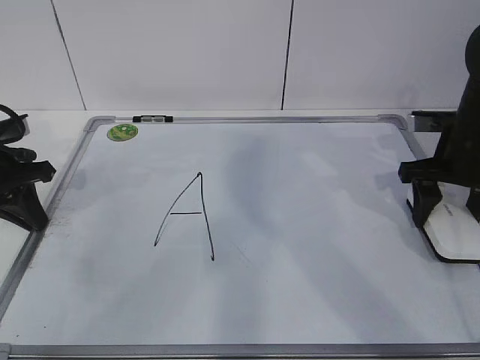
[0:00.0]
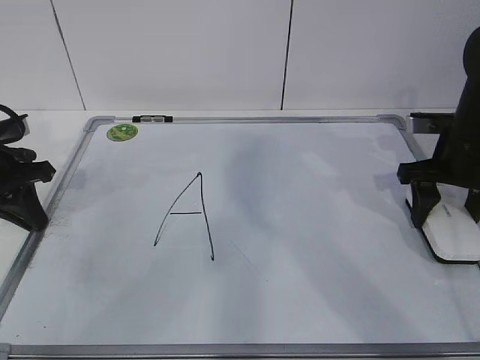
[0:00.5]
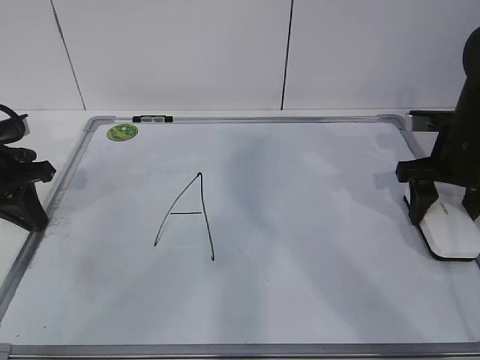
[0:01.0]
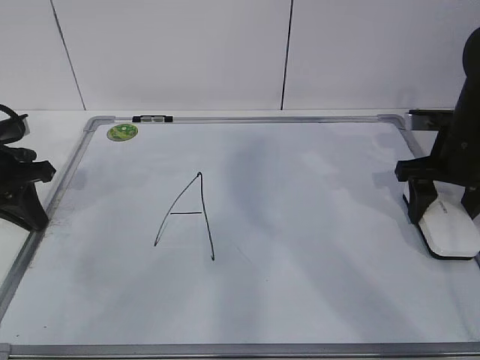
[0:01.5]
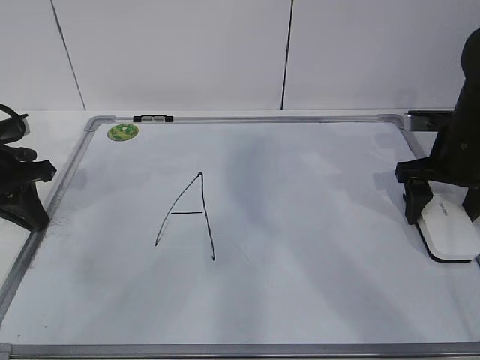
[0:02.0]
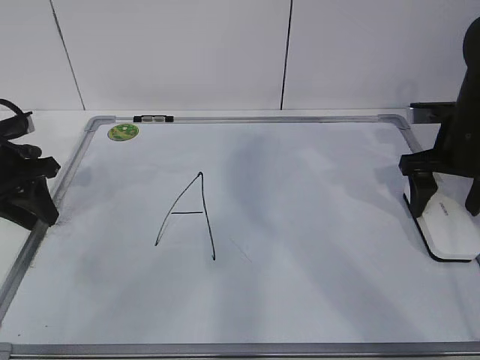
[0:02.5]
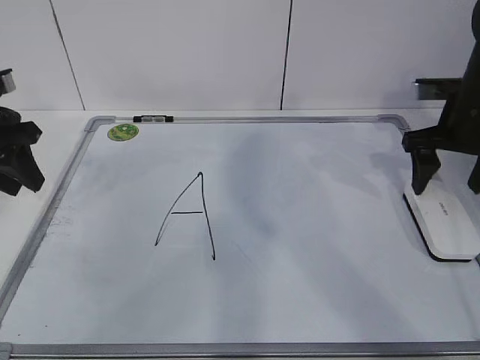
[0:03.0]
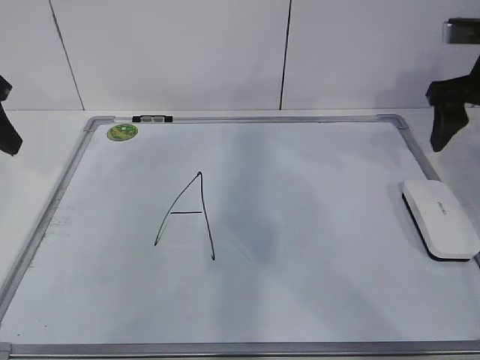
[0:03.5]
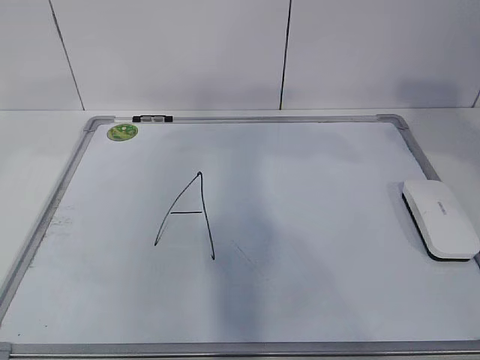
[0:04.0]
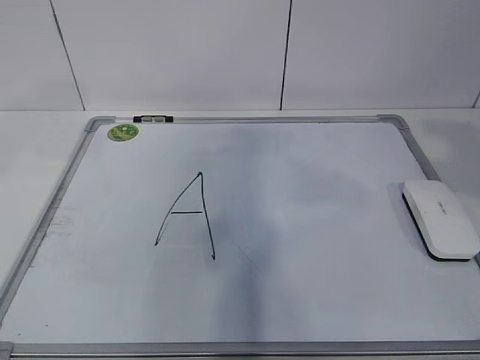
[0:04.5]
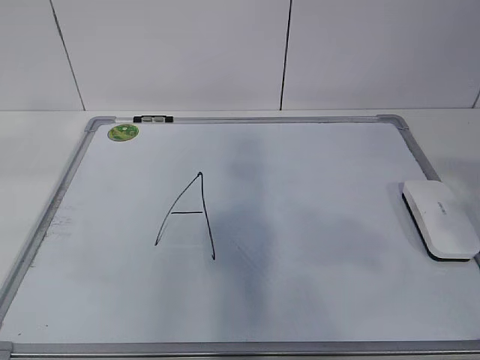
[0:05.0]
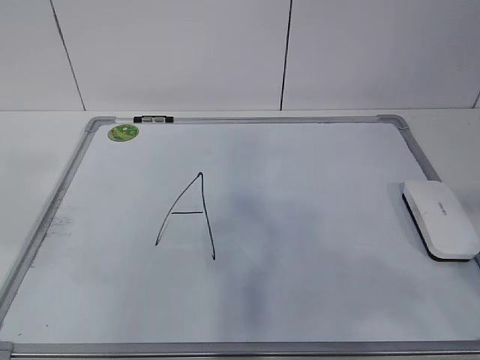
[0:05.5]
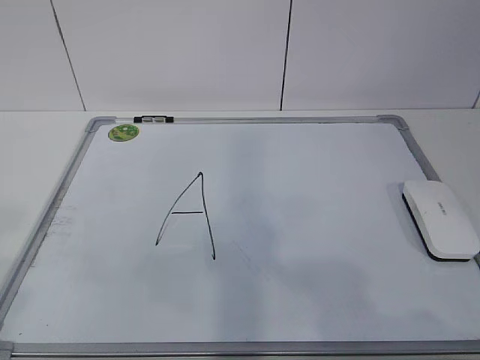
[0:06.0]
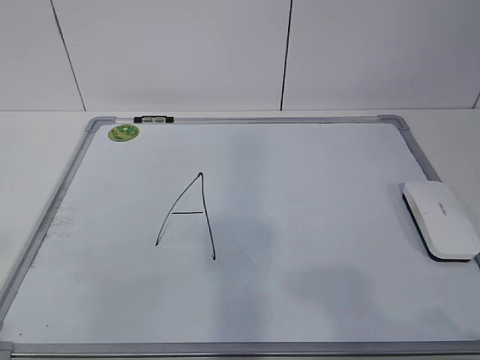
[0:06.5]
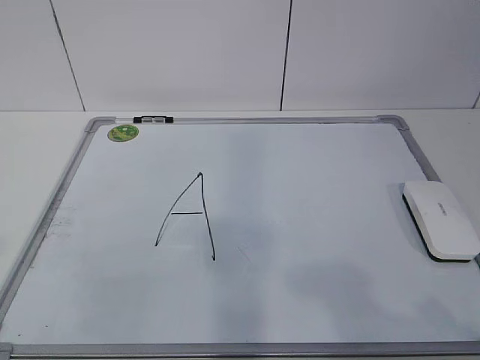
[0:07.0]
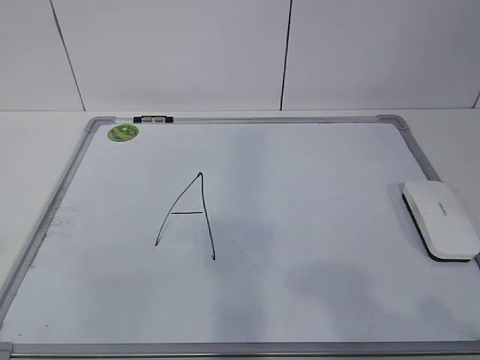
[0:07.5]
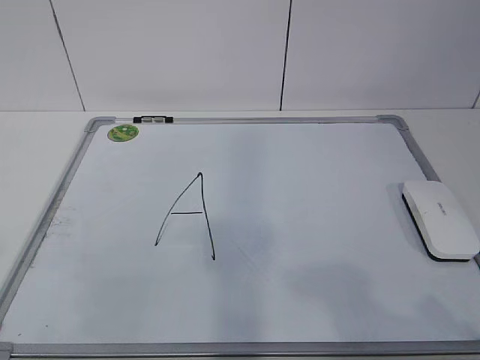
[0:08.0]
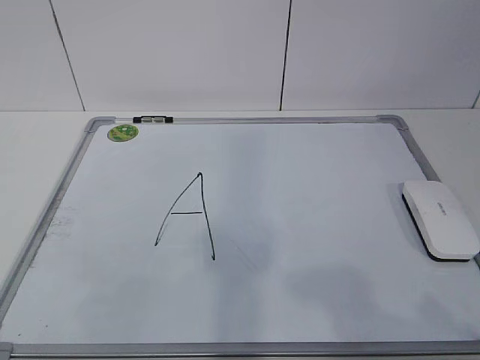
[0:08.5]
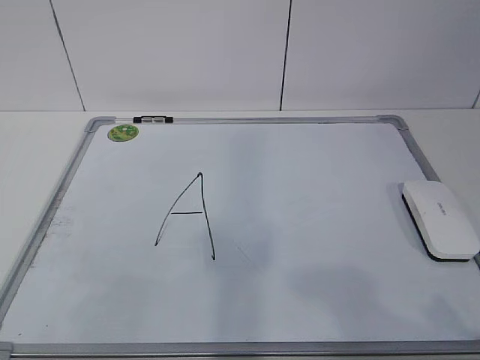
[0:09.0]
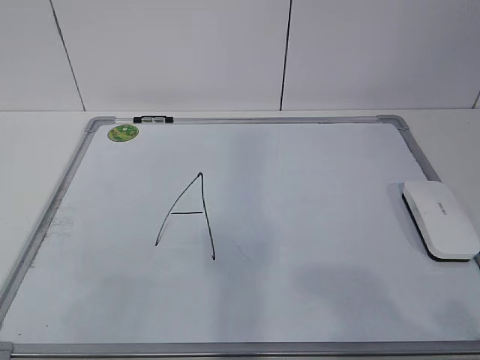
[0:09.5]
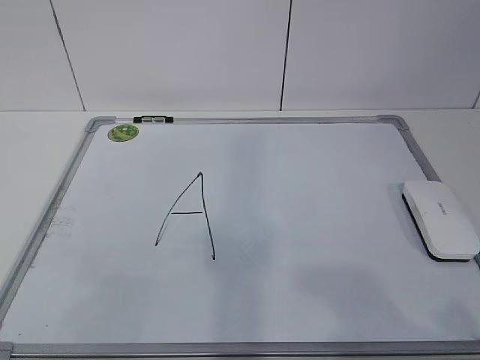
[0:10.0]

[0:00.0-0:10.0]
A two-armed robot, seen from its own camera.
Task of the whole recording: pick up the eraser on the blackboard and erase the letter "a".
0:00.0 to 0:02.0: The right gripper opens its fingers.
0:02.0 to 0:04.0: The left gripper travels upward by approximately 20 cm, and opens its fingers; the right gripper shifts some 20 cm upward and backward.
0:04.0 to 0:06.0: Both grippers travel together backward, roughly 30 cm.

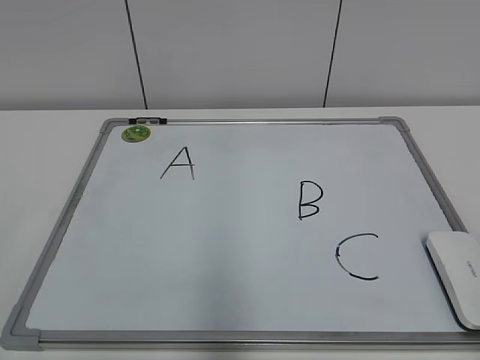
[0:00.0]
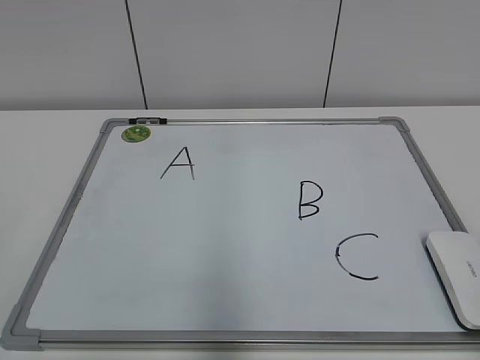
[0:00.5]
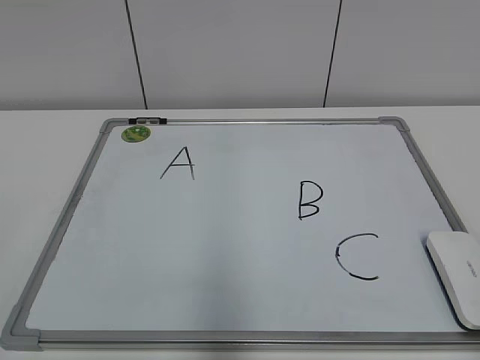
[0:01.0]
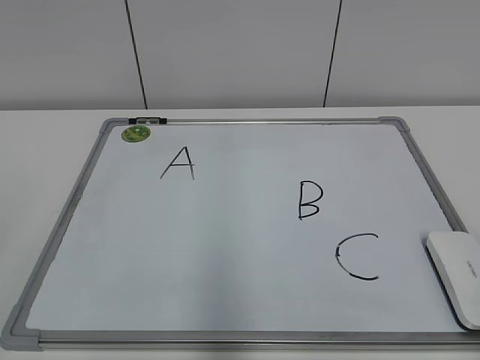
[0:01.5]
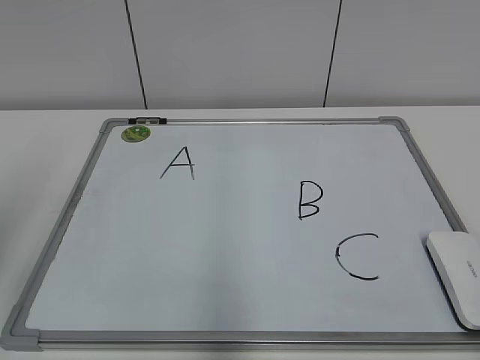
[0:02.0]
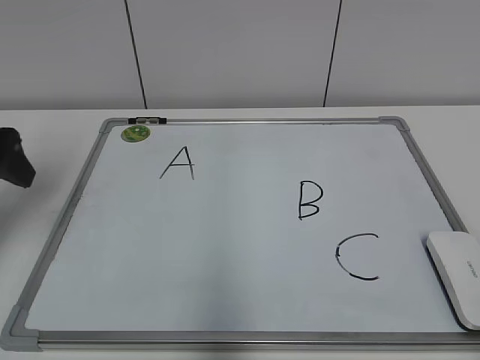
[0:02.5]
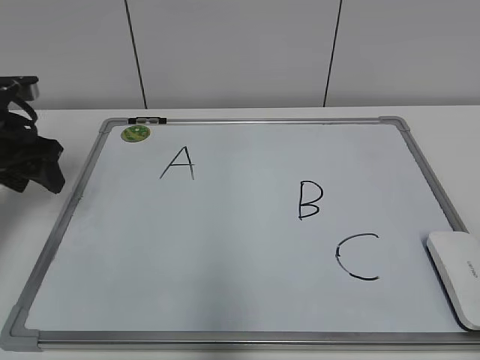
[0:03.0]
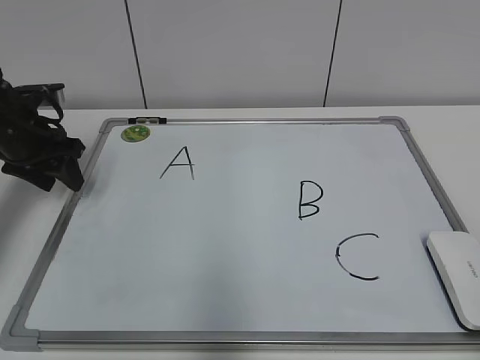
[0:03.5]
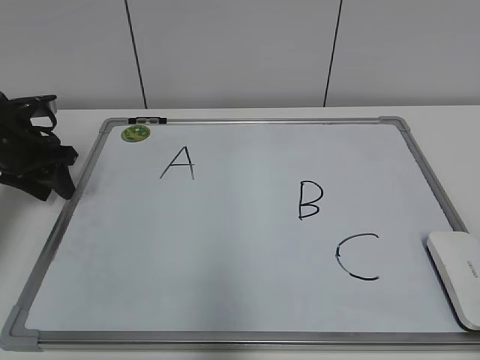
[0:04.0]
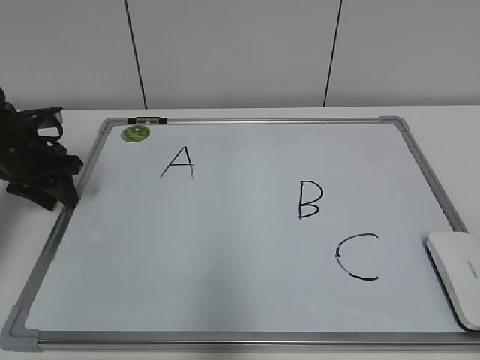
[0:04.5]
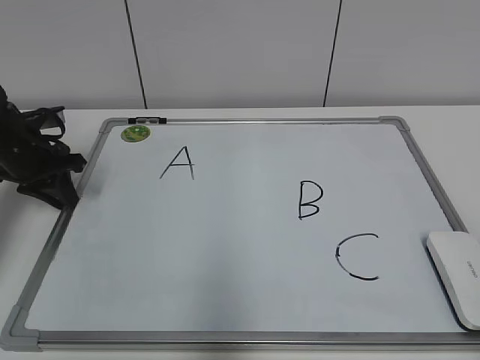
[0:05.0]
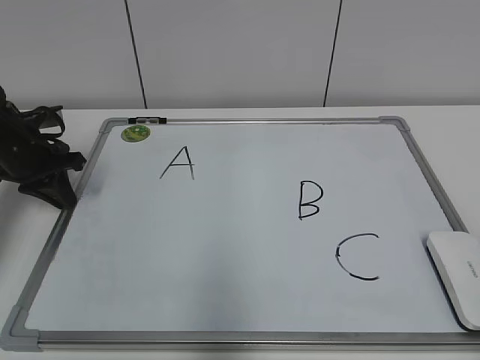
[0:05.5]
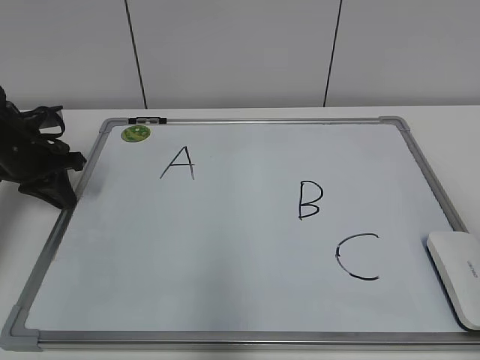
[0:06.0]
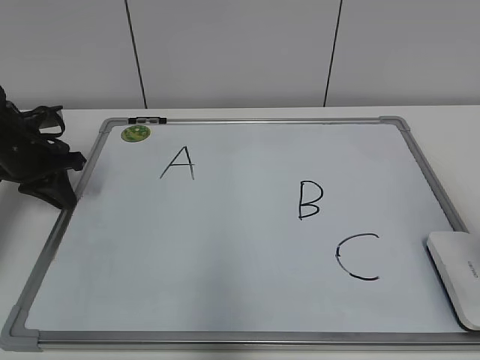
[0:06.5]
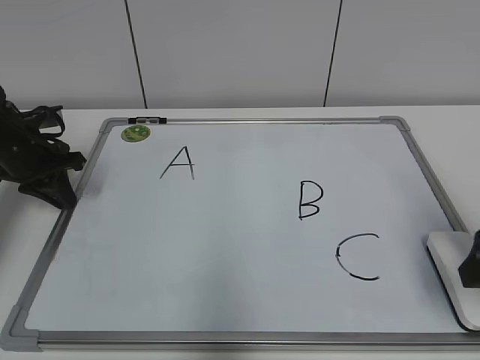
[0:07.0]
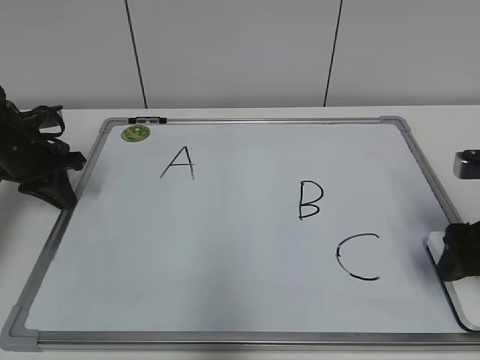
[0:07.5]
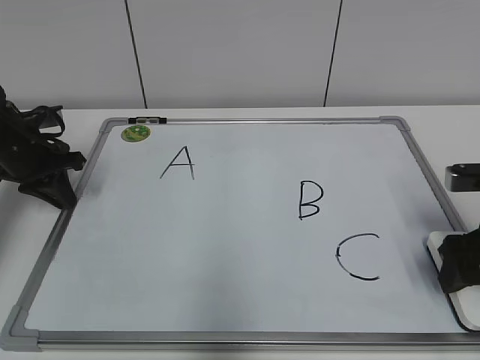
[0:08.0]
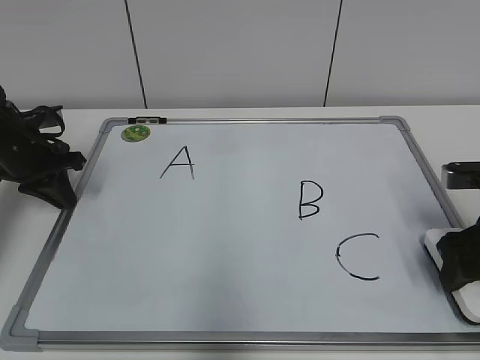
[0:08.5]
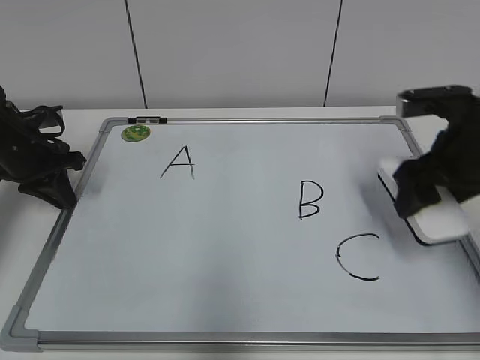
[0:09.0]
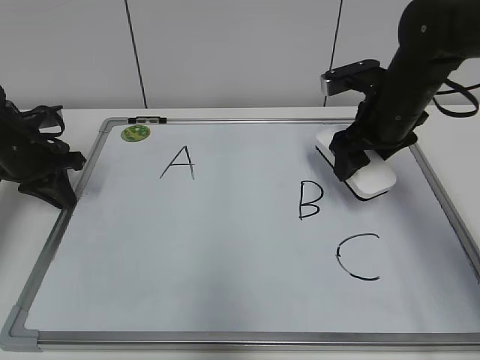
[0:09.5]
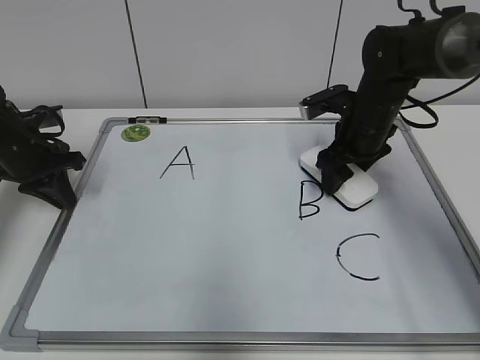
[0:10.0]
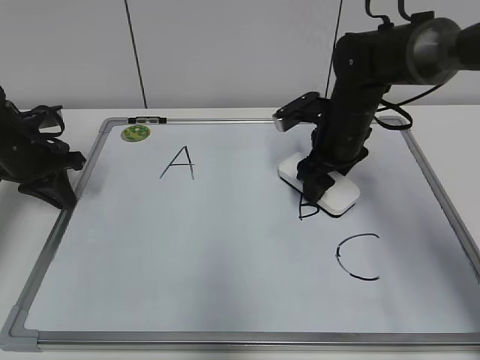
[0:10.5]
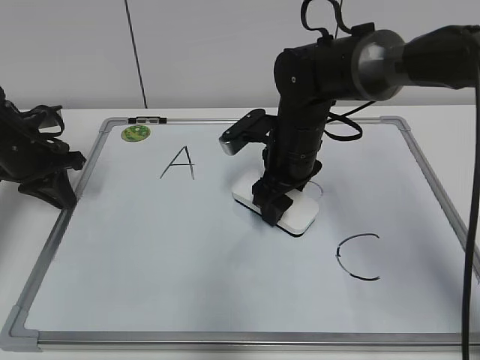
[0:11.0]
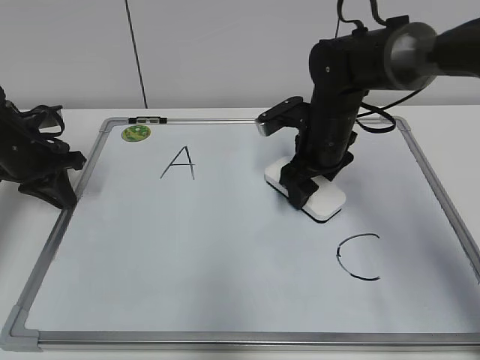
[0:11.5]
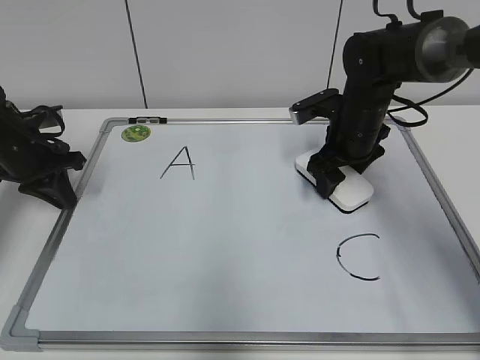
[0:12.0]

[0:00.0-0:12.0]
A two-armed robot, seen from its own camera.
Task of the whole recording: pick up the eraser on the blackboard and erase the letter "B".
Step, 0:00.0 to 0:05.0: Hold the drawing board steady with your left hand.
Step, 0:05.5 to 0:08.0: Grab the eraser with your right hand.
0:02.0 to 0:04.0: The left gripper goes roughly 30 cm forward and downward, and closes its fingers.
0:04.0 to 0:06.0: The left gripper closes its fingers.
0:06.0 to 0:08.0: The right gripper shifts approximately 25 cm forward and downward, and opens, then closes again.
0:08.0 to 0:10.0: The right gripper shifts some 20 cm forward and to the left, and closes up.
0:10.0 to 0:12.0: The right gripper reaches approximately 10 cm to the left, then returns.

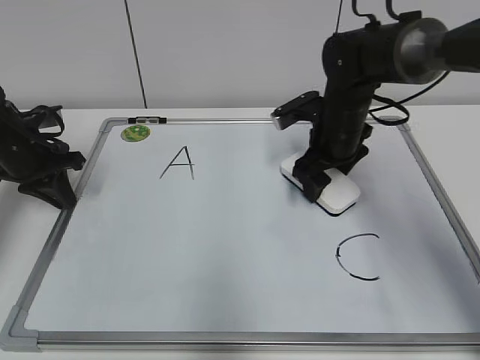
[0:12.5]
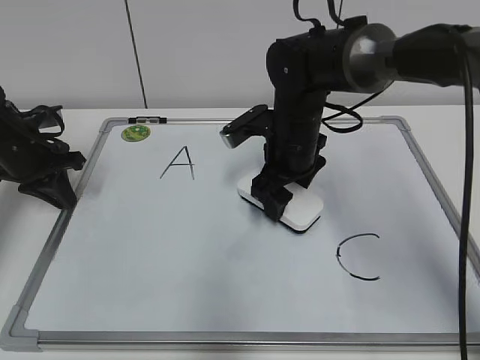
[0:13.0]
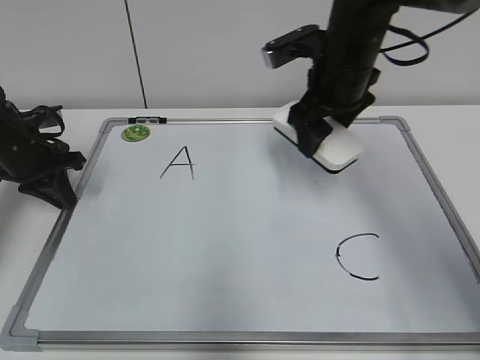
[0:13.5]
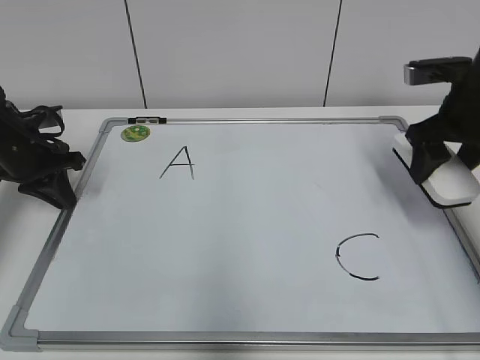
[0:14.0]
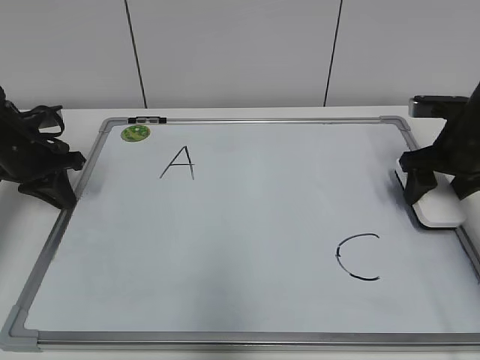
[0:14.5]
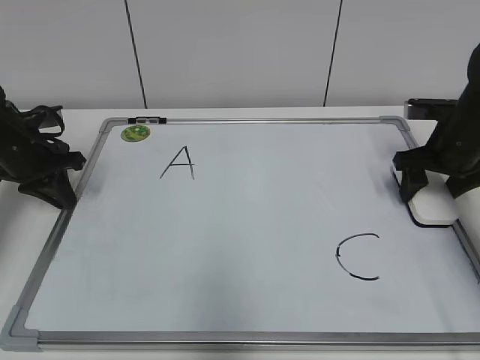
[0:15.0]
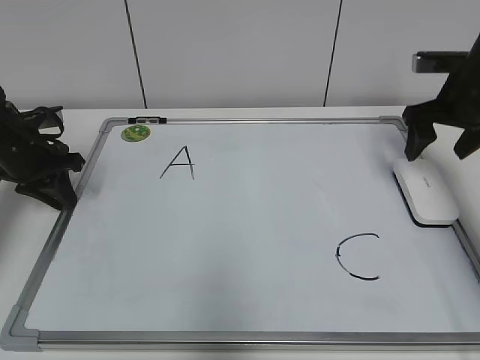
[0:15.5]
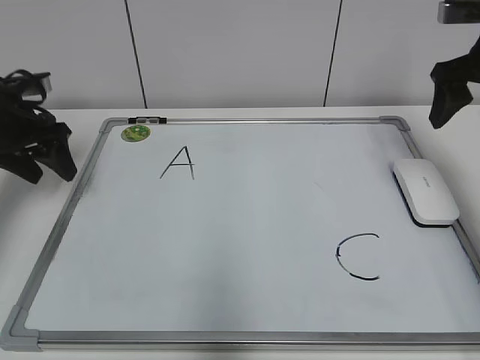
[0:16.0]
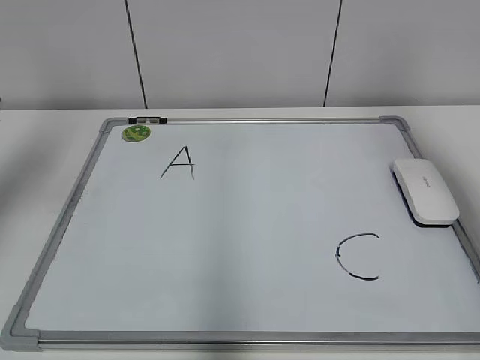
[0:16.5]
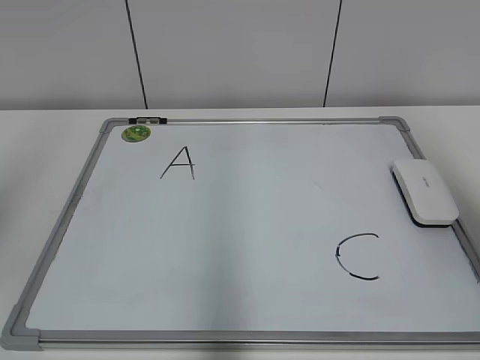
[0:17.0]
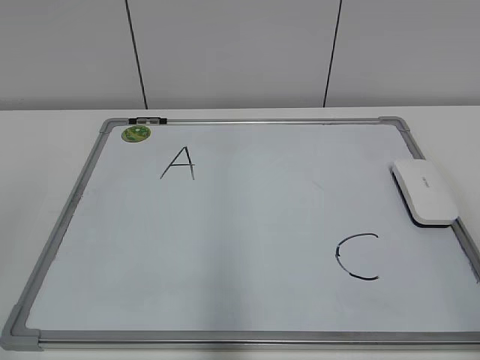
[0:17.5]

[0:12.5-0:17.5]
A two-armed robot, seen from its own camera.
Task of the whole recording: pick up the eraser on the blackboard and erase the letter "B".
Step, 0:13.0 to 0:15.0: Put down the eraser with your right hand.
0:12.5 to 0:15.0: The right gripper shifts about 15 cm to the right.
0:15.0 to 0:17.5: The grippers both shift backward and upward by about 40 cm. The left gripper opens, while the right gripper opens, then closes again.
